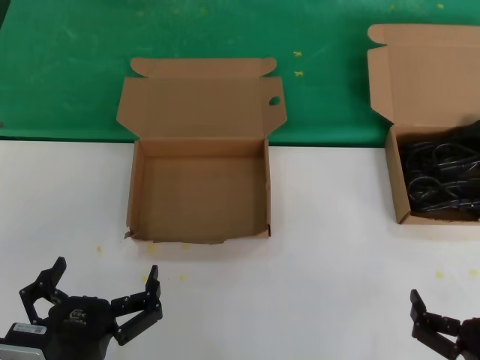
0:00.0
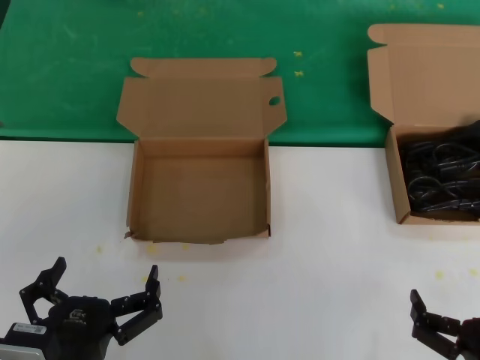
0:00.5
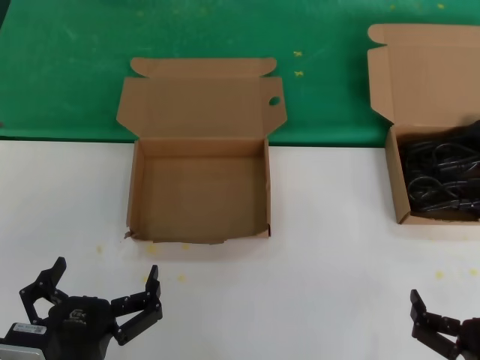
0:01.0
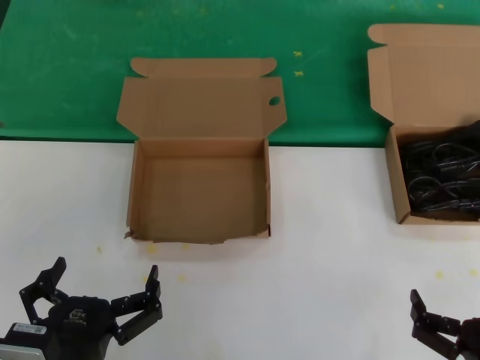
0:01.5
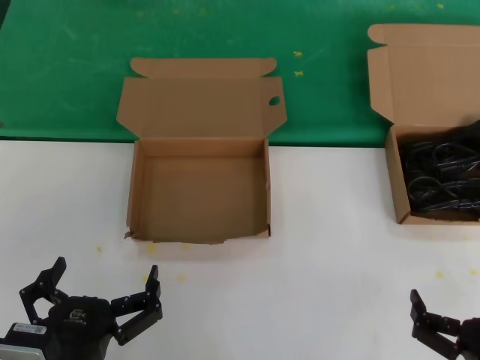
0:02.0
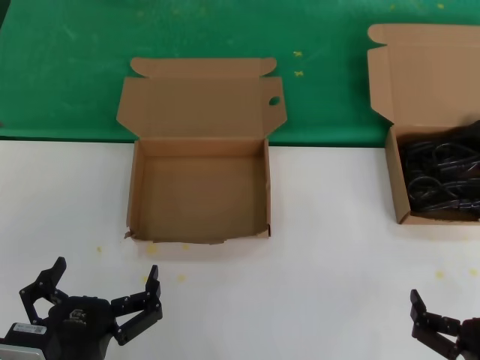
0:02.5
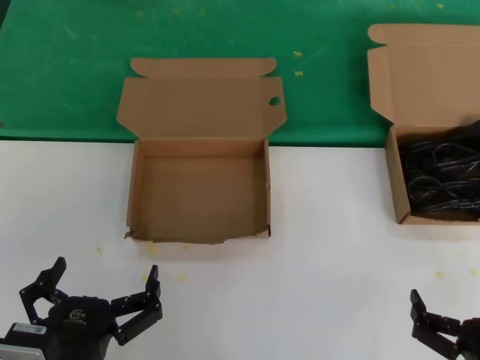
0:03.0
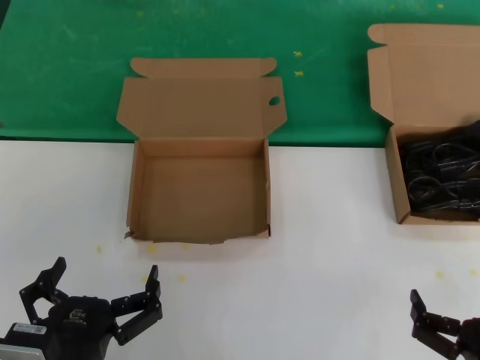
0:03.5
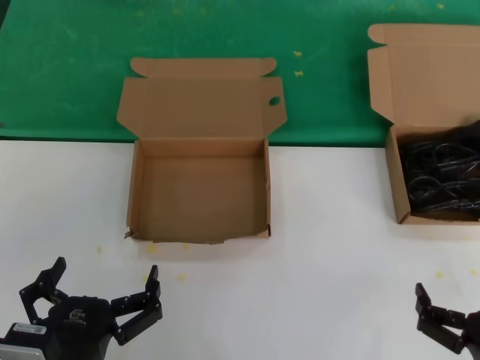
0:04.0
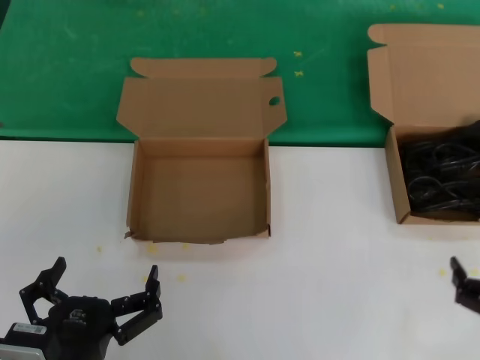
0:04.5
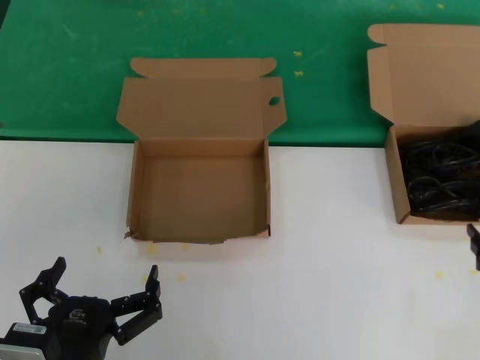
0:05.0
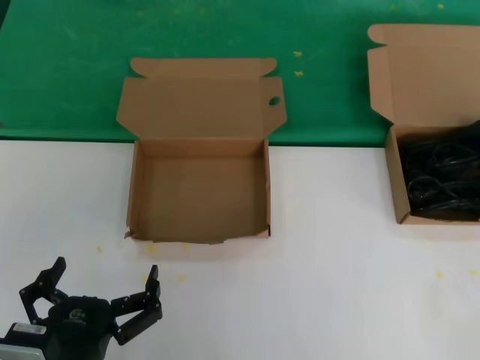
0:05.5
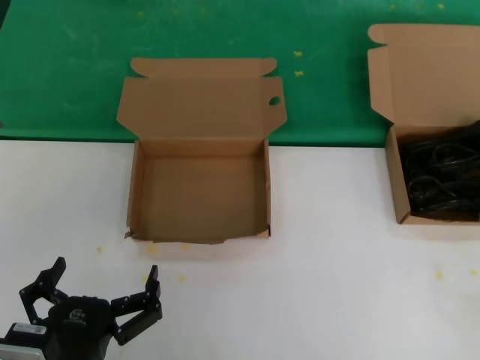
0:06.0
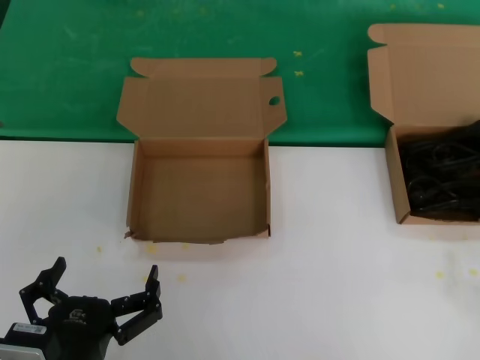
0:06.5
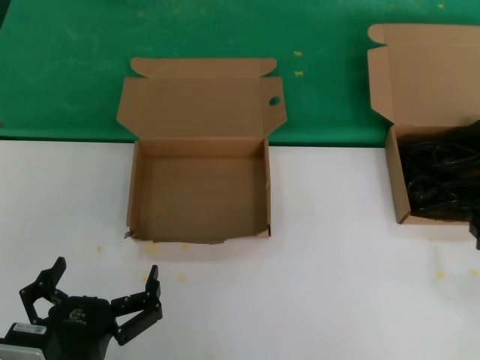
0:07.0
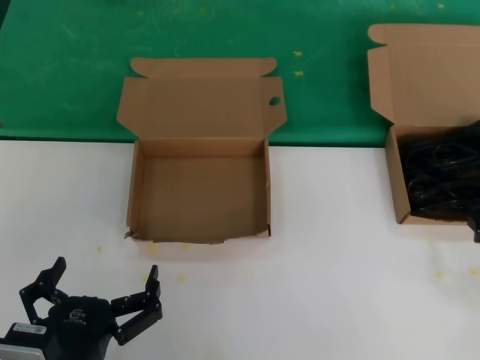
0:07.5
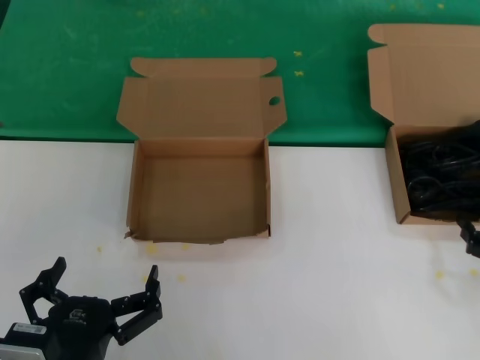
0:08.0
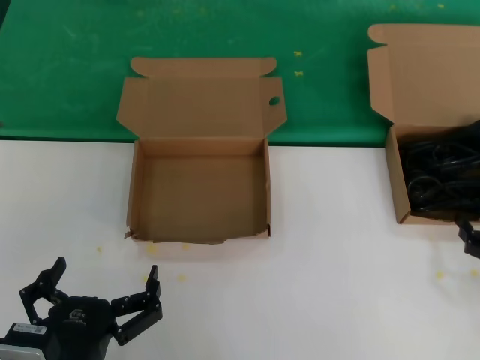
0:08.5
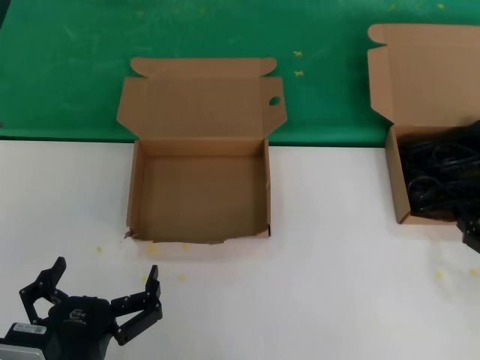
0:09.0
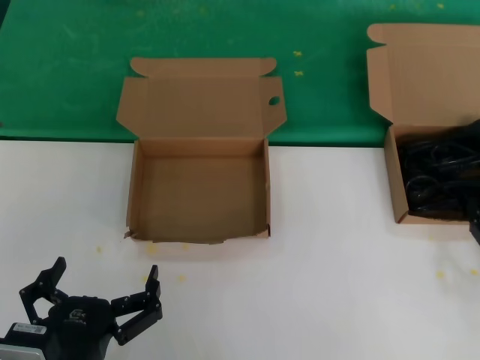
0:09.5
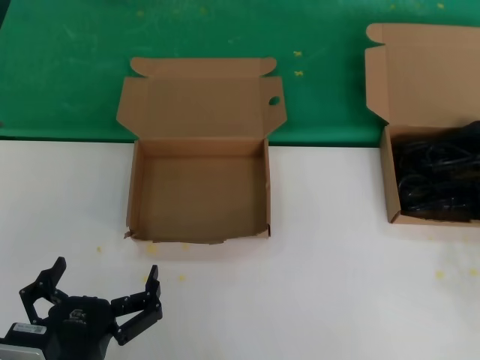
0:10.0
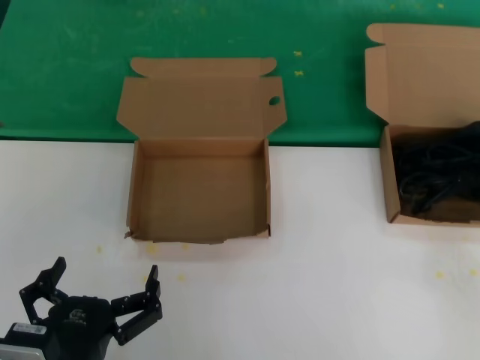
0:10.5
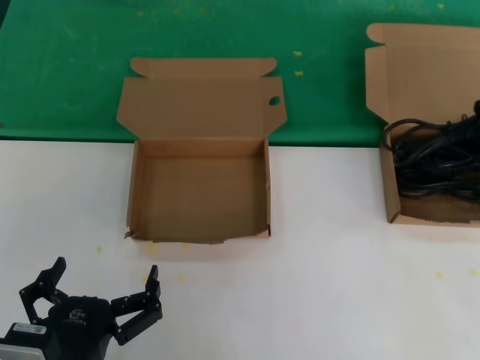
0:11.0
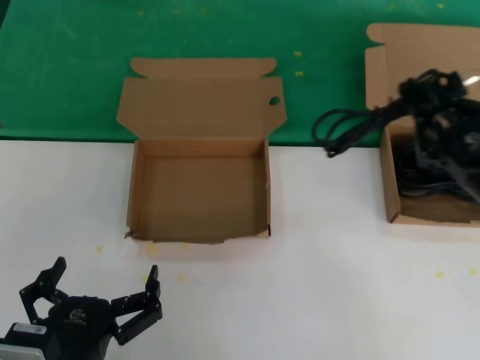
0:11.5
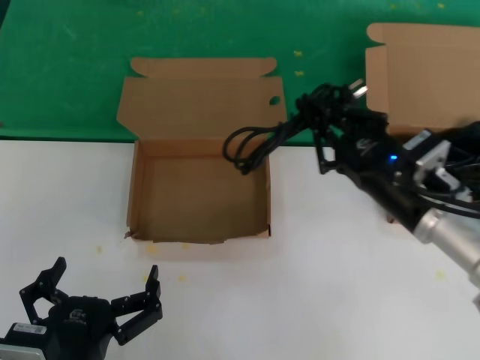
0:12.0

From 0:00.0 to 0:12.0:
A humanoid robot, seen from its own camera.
Task of the whole recording: take the parts from the box containing them and put them into an empty box.
Step, from 0:00.0 to 0:10.5: Grasp the data cable.
From 0:00.0 to 0:04.0: Both hands stay put.
From 0:04.0 to 0:06.0: The right hand heads to the right, forward and upward, covering about 20 cm.
From 0:08.0 to 0:10.0: The two hands keep their place.
From 0:10.0 to 0:12.0: The right hand goes roughly 25 cm to the left and upward.

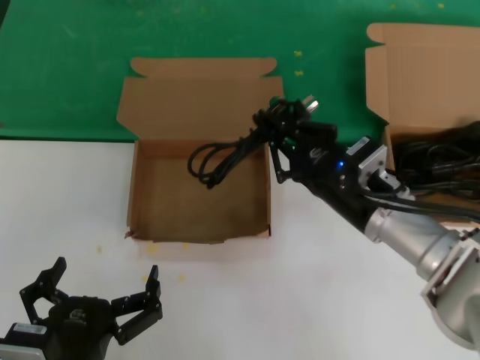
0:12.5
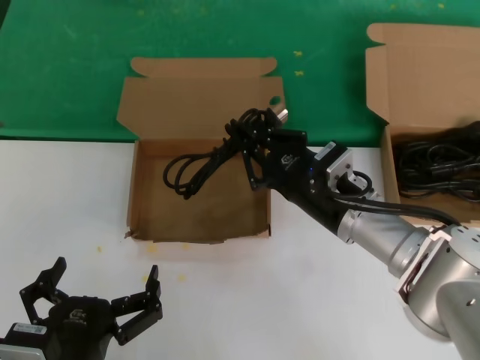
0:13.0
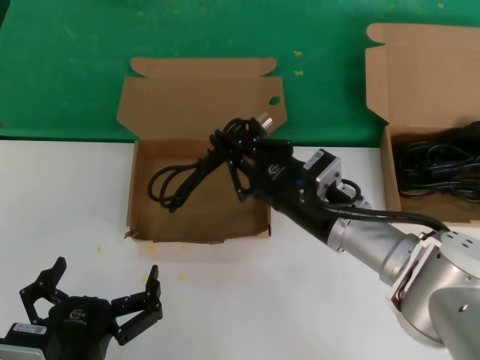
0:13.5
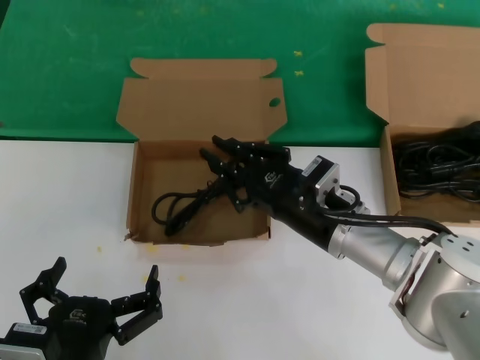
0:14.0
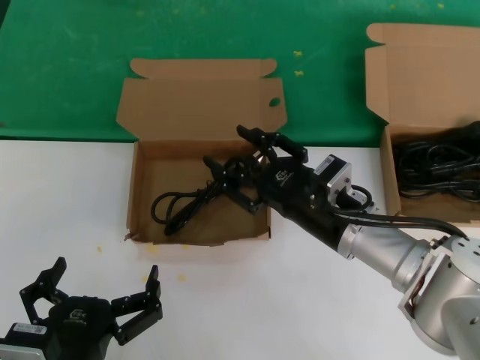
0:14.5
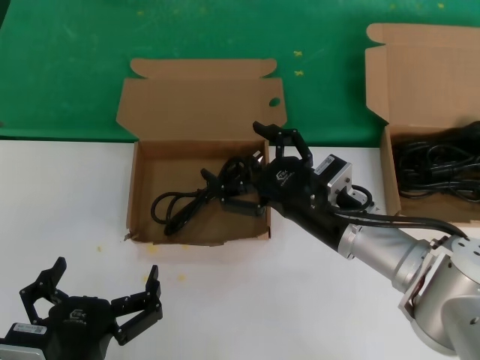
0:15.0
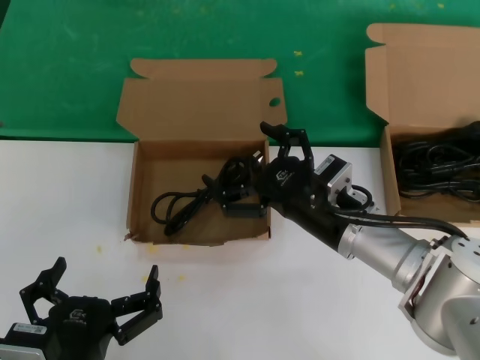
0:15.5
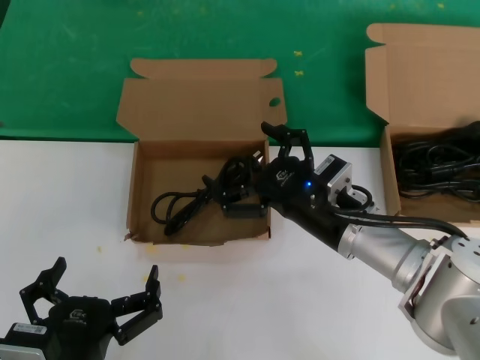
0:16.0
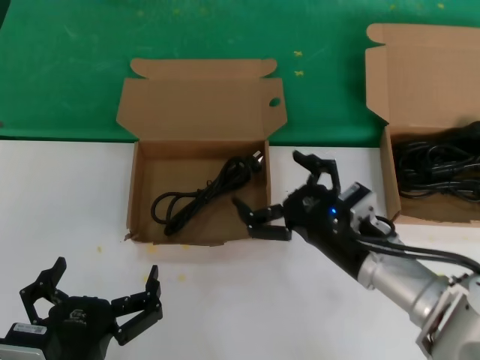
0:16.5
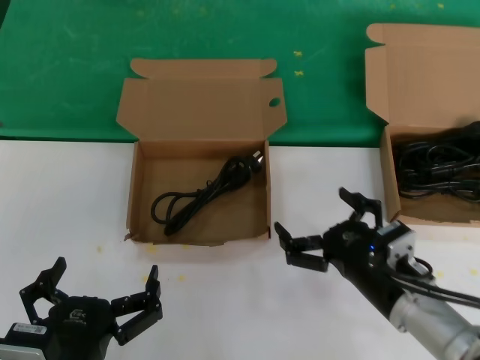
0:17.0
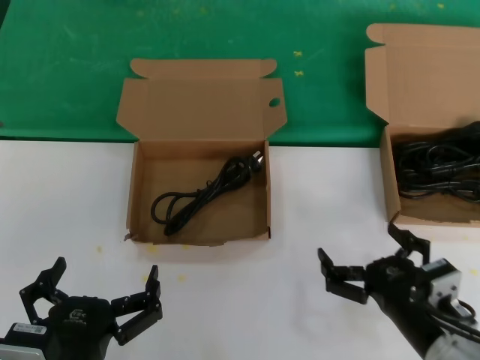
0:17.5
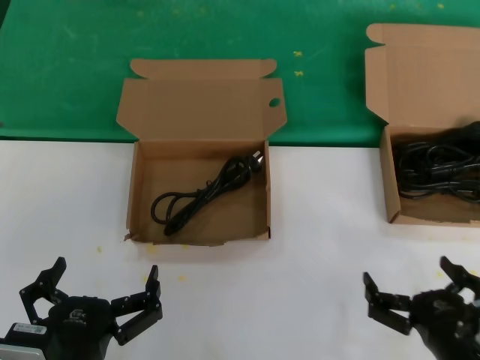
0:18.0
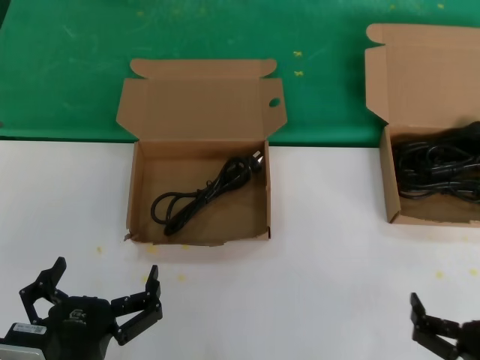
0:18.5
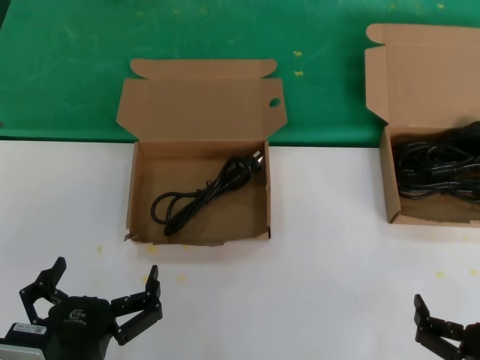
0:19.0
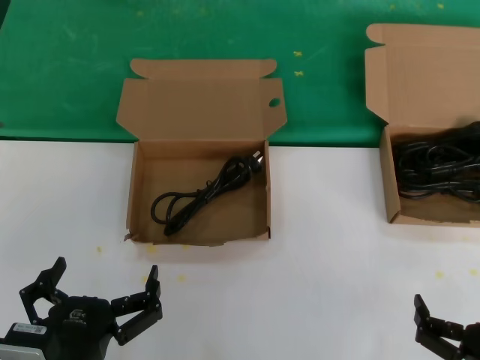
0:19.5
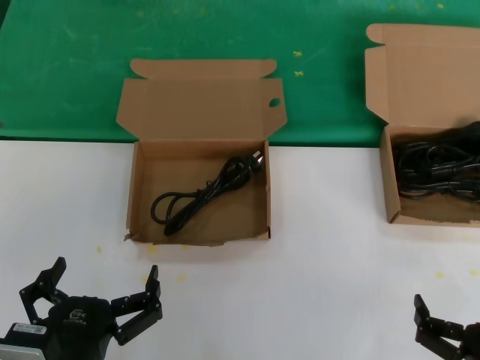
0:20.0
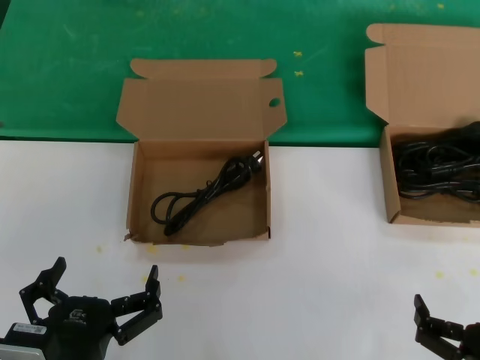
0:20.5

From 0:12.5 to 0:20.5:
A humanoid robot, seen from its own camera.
Task of the whole recording: take the parts from the box containing them and put them into an empty box.
Step, from 0:12.5 to 0:16.5: Place the data cable in the another box.
From 0:12.5 to 0:16.5: The hands move only a little.
From 0:16.5 to 0:18.5: The right hand travels backward, to the right and downward by some 25 cm.
From 0:18.5 to 0:20.5: Neither hand changes place.

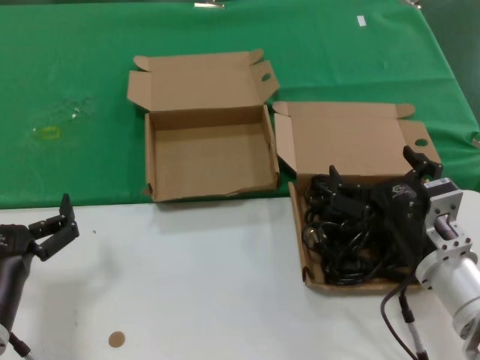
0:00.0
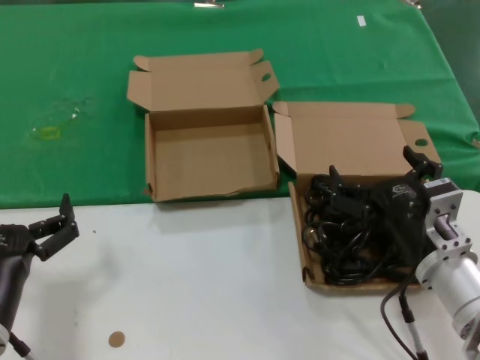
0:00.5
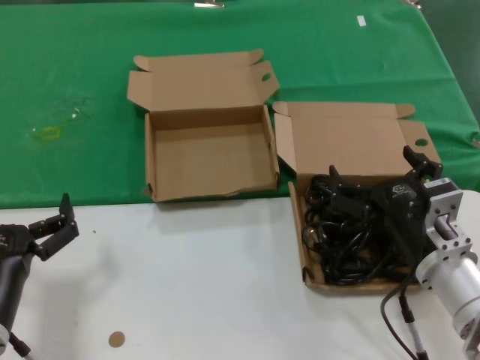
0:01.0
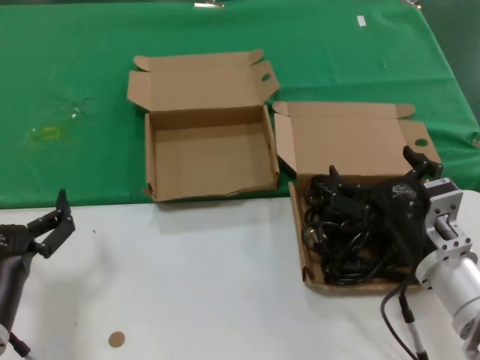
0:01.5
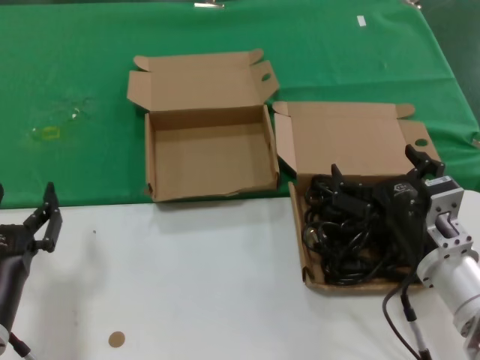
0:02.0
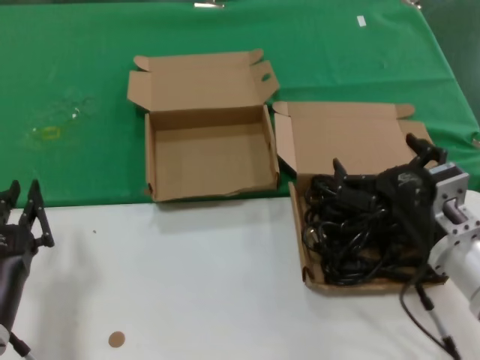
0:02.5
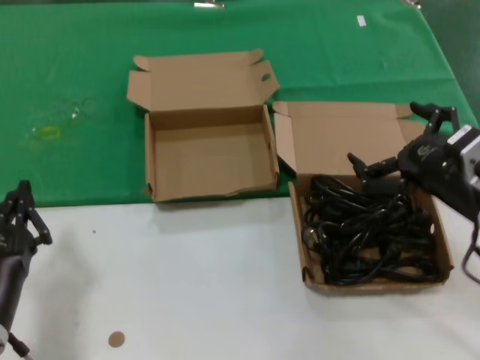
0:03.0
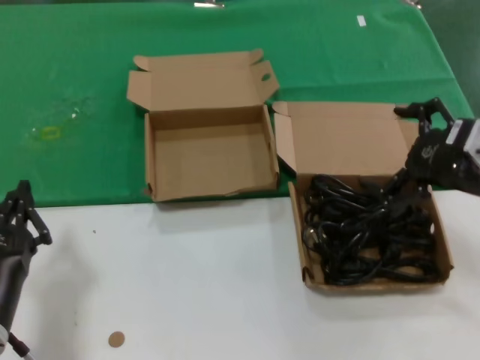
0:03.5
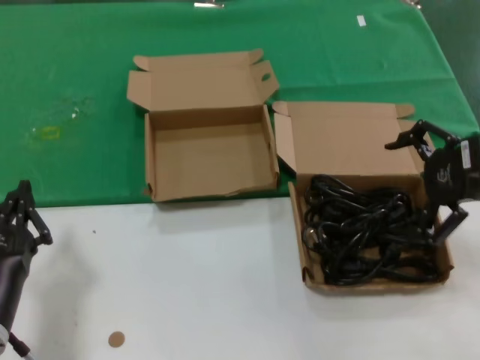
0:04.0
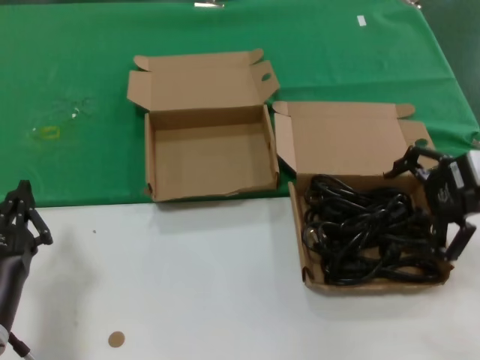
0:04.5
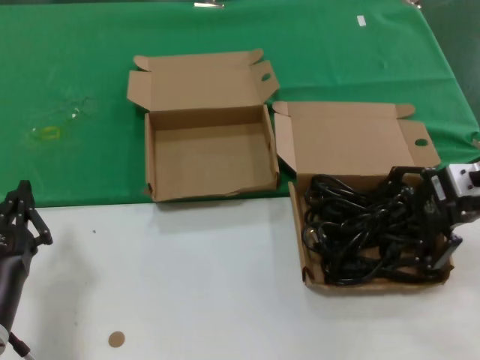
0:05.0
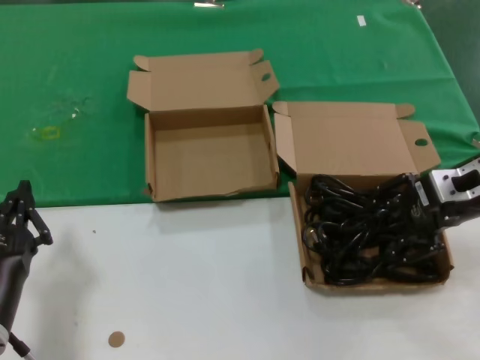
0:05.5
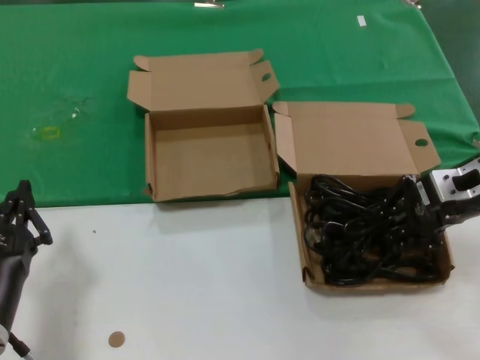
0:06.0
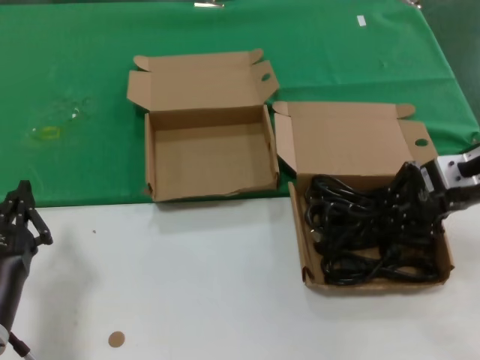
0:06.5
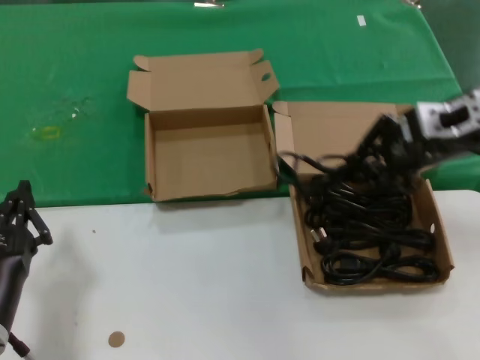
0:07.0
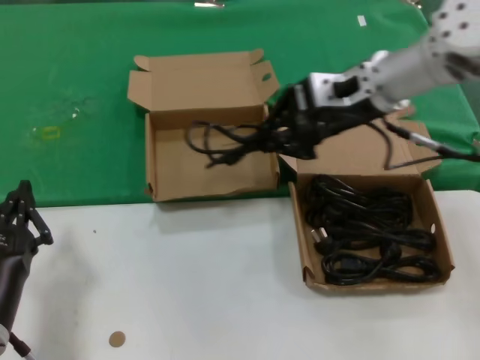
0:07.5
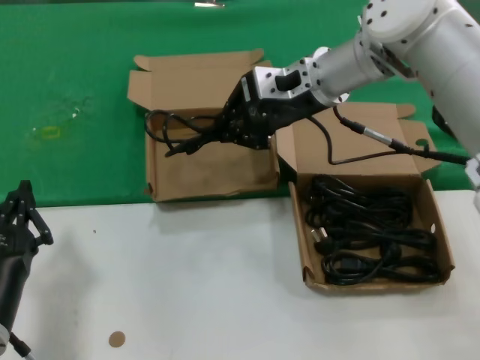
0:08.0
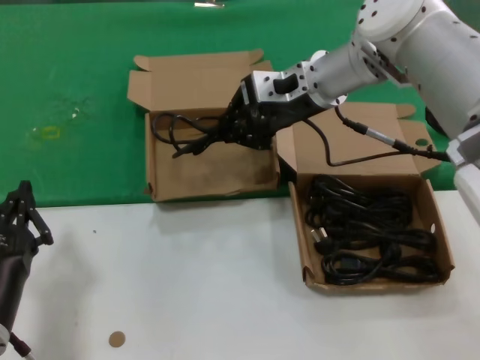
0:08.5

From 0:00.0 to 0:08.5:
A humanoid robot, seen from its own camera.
Task of the whole recording: take the parts from the box containing them and put them into an empty box.
Step, from 0:00.0 to 0:06.0: Grasp the data cable.
From 0:00.0 to 0:02.0: Neither hand changes place.
From 0:02.0 to 0:04.0: The right hand heads upward and to the right, covering roughly 20 cm.
From 0:04.0 to 0:06.5: The right hand moves some 5 cm.
From 0:06.5 to 0:08.5: The right hand is displaced to the left and forward by some 25 cm.
